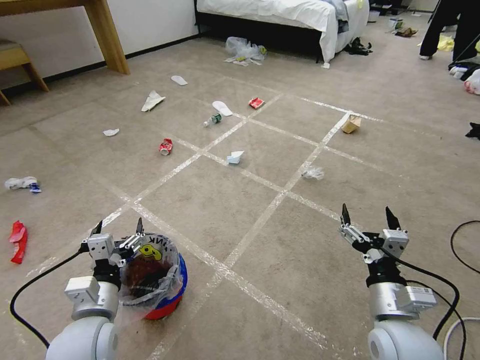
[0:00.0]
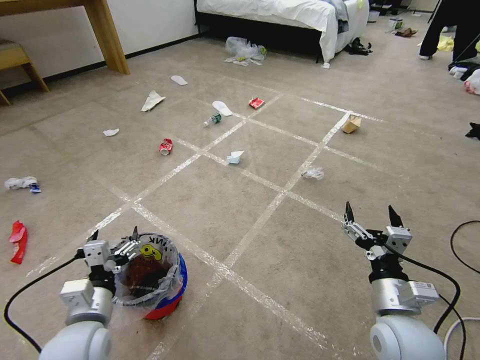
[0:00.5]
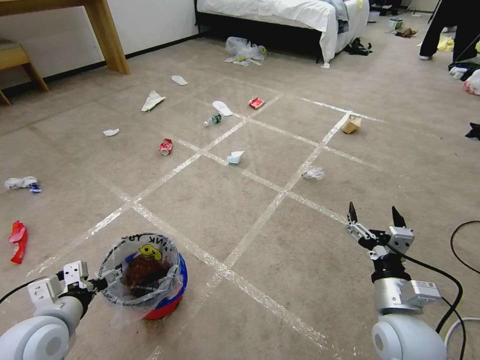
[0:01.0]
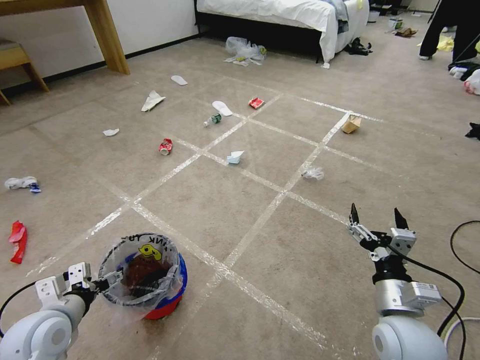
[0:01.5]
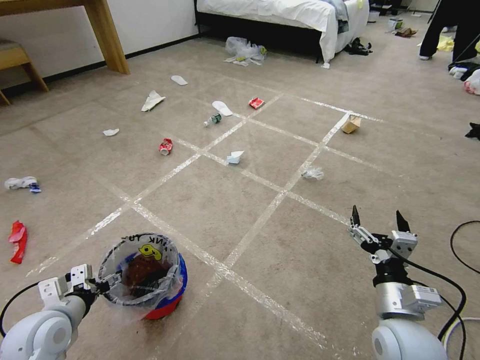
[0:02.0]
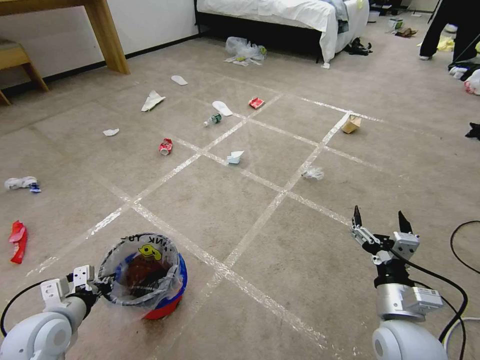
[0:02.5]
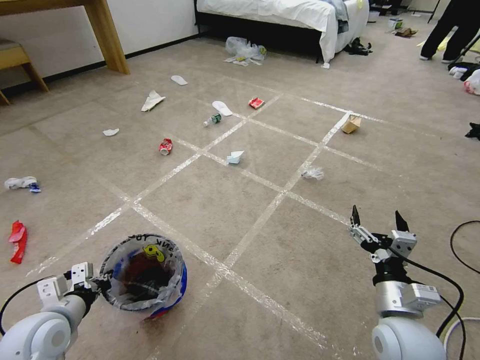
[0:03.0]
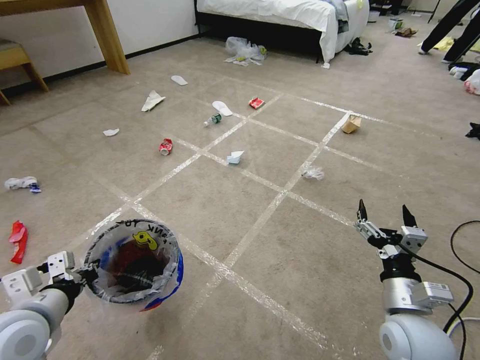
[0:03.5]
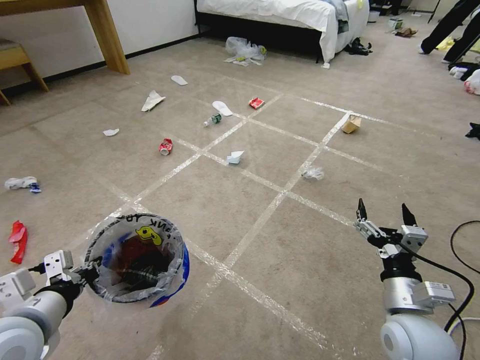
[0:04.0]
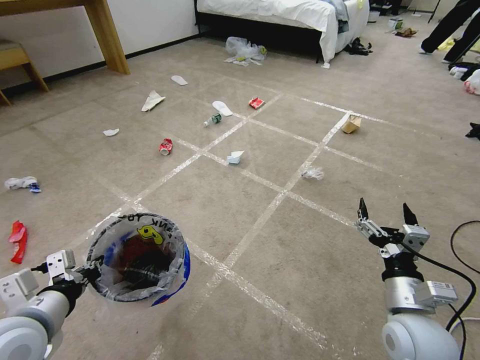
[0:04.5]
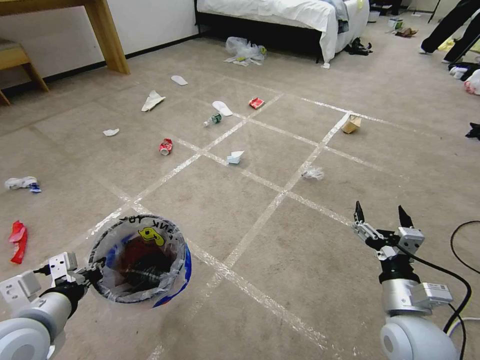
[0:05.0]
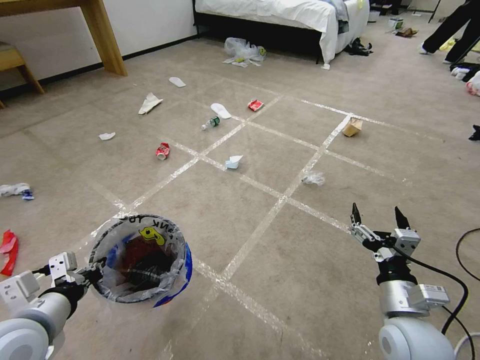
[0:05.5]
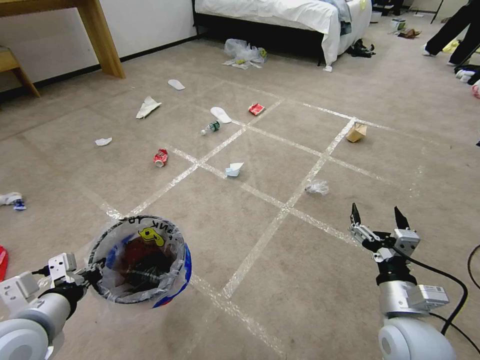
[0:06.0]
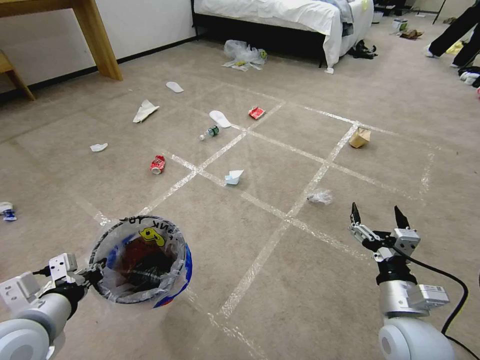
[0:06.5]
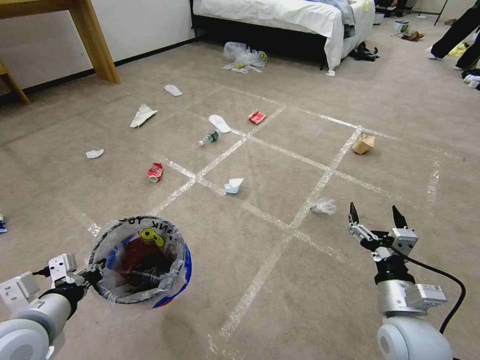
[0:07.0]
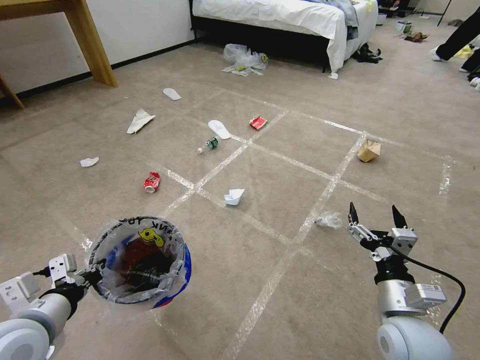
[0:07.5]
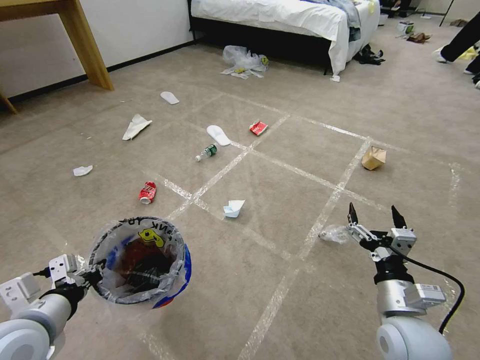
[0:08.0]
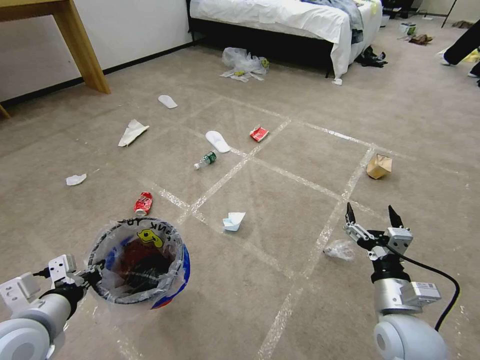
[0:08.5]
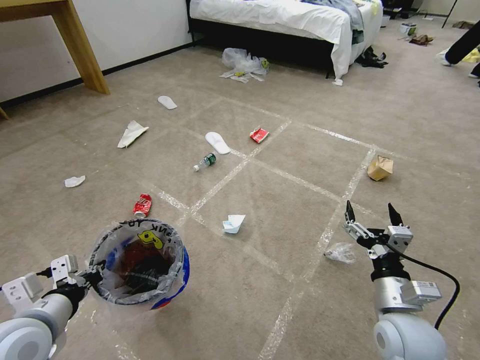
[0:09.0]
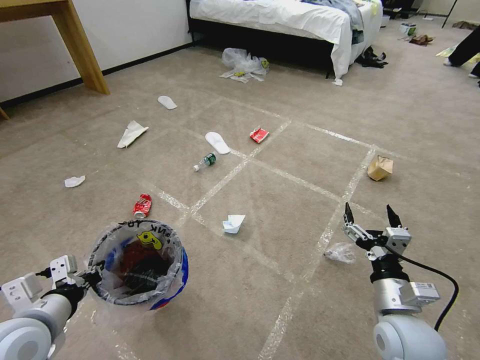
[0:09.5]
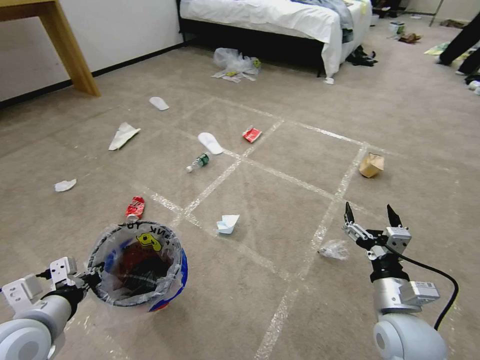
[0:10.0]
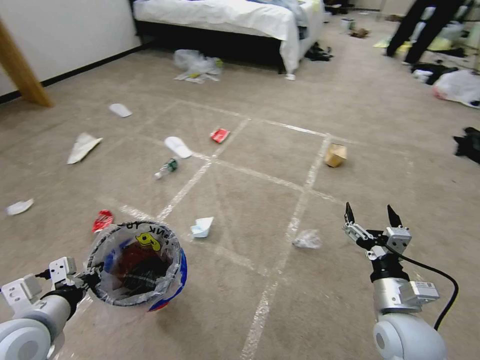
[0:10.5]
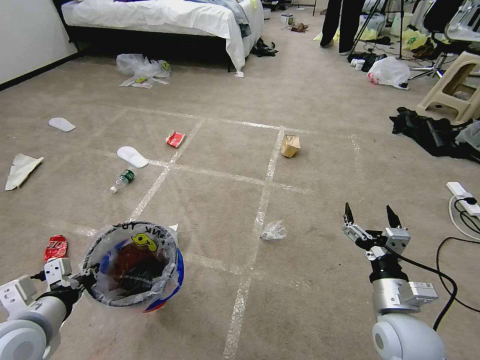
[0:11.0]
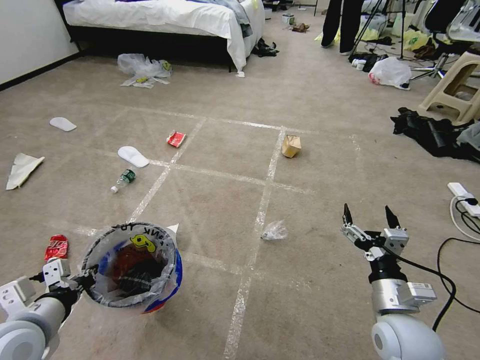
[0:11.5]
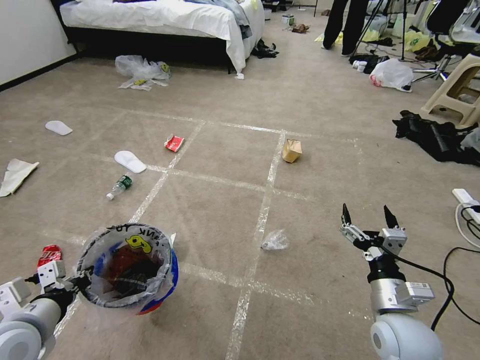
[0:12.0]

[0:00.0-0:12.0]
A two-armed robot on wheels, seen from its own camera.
Task of the whole recording: Pick up the trash bin and place the garbage on the floor into it.
0:02.0 to 0:04.0: The left gripper travels upward by approximately 10 cm, and closes up.
0:04.0 to 0:06.0: Both grippers stay about where they are.
0:08.0 to 0:10.0: The grippers move only a little.

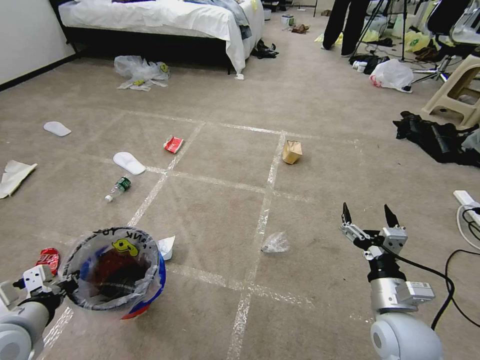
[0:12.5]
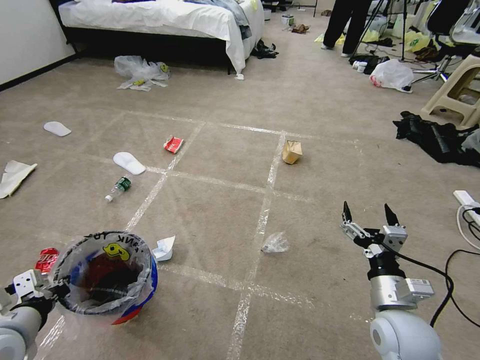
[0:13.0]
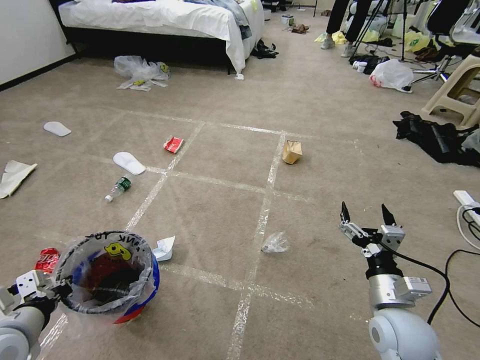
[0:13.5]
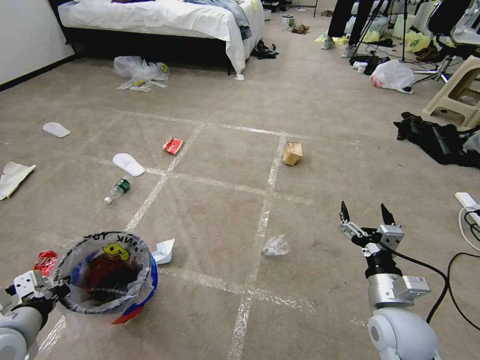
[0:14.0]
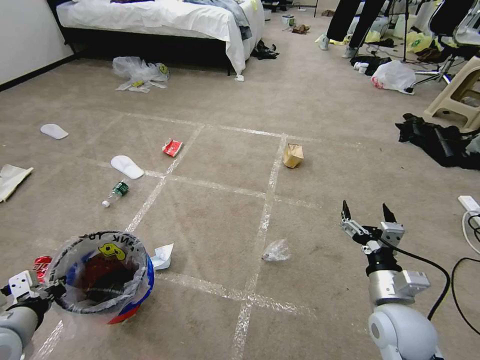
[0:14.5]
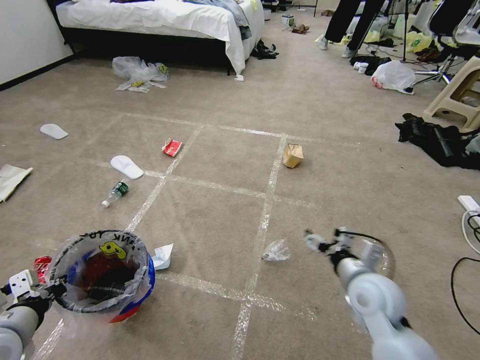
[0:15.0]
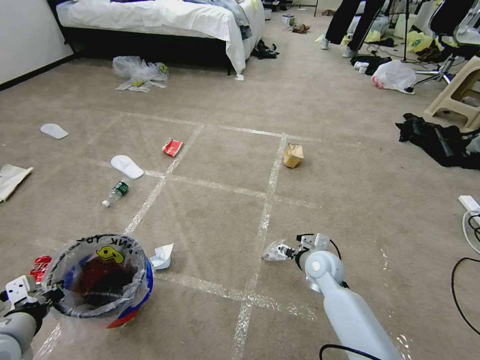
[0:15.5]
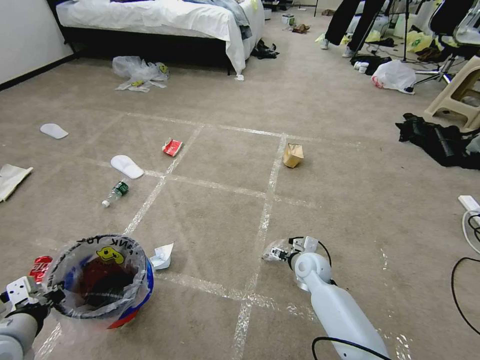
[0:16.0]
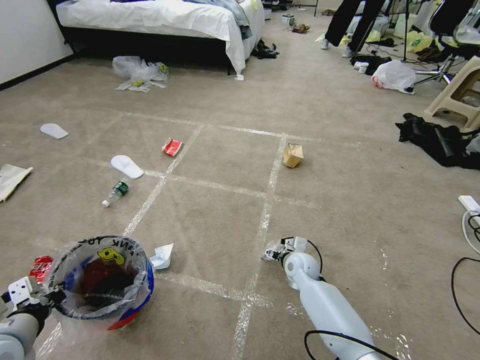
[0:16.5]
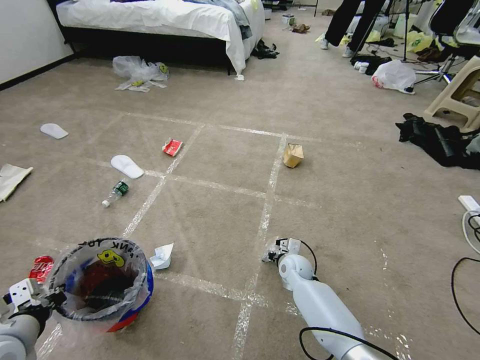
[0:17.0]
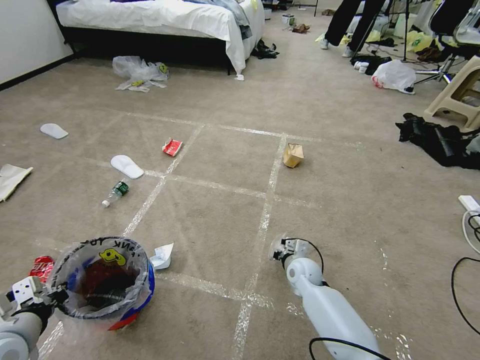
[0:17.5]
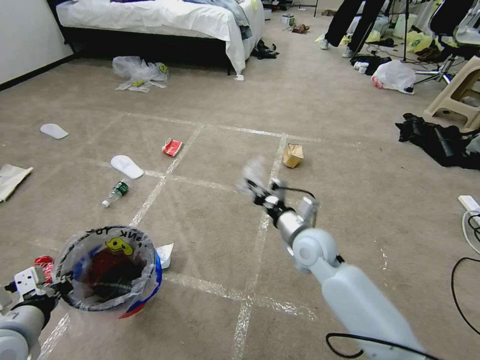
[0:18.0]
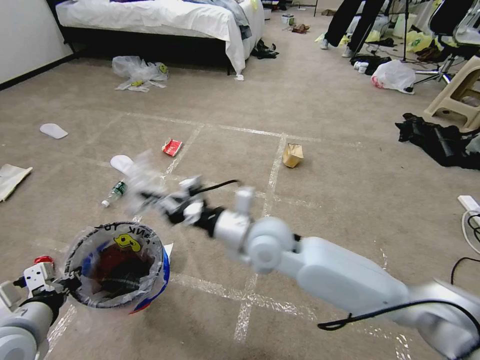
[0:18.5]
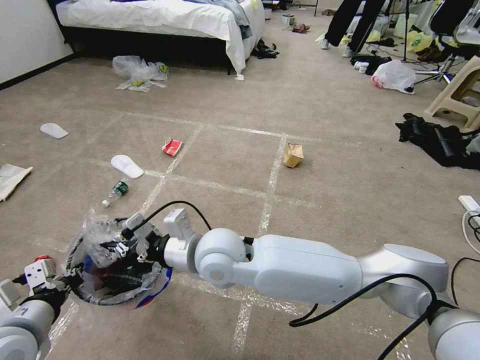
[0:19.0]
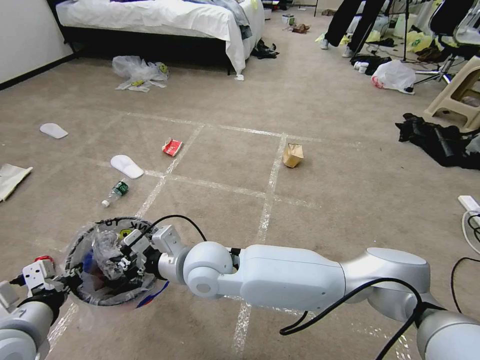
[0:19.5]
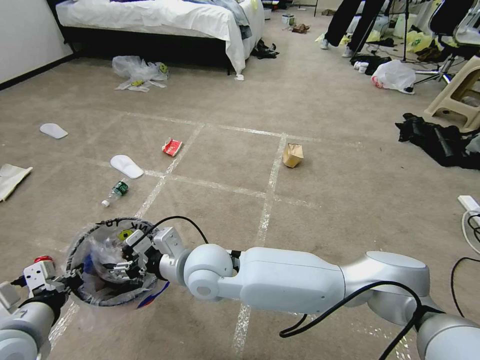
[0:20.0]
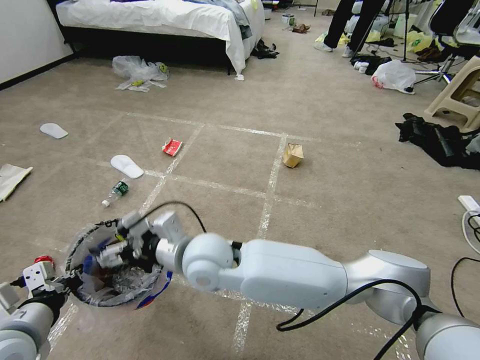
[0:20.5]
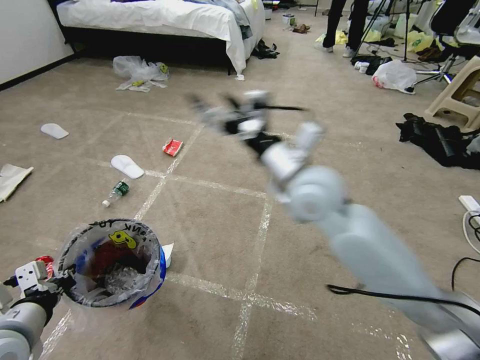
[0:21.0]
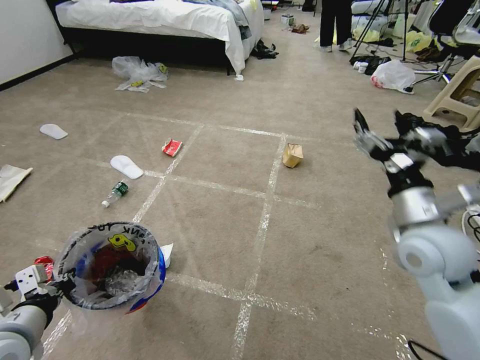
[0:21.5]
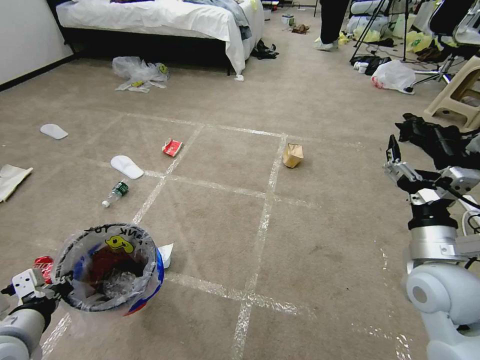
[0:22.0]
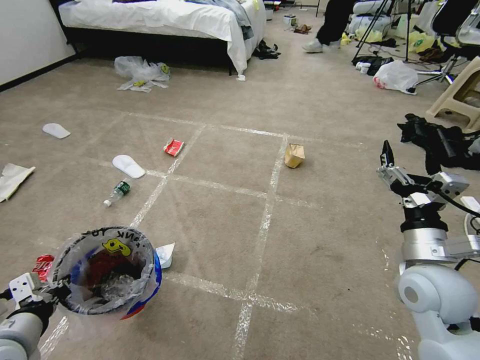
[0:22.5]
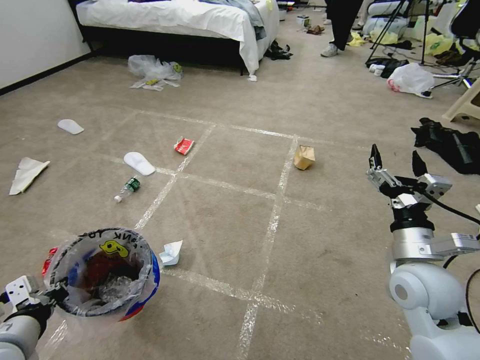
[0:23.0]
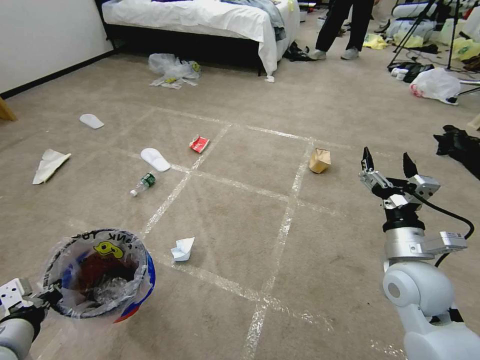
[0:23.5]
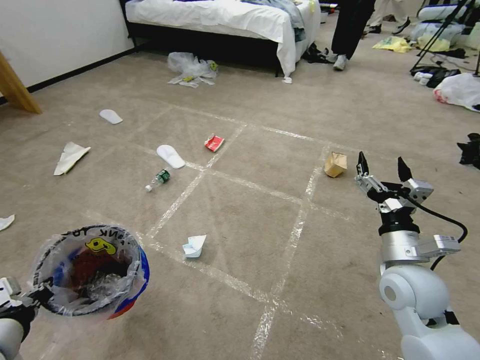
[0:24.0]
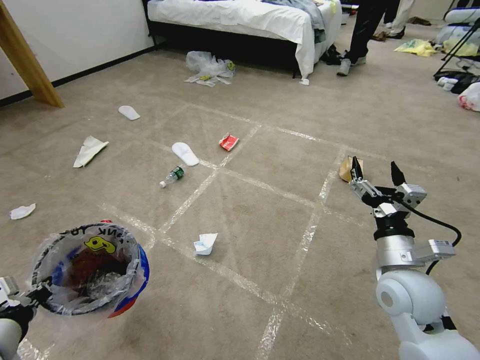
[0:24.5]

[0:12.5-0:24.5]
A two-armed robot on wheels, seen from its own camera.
Task of the whole recording: Pick up the trash bin and place the garbage on the floor into it.
0:12.5 to 0:14.5: The grippers make only small movements.
0:14.5 to 0:16.5: The right gripper travels forward, downward and to the left by about 25 cm.
0:16.5 to 0:18.5: The right gripper shifts approximately 30 cm upward and to the left, and closes its fingers.
0:18.5 to 0:20.5: The right gripper goes roughly 10 cm to the left, and opens its fingers.
0:20.5 to 0:22.5: The right gripper is displaced to the right by about 40 cm.

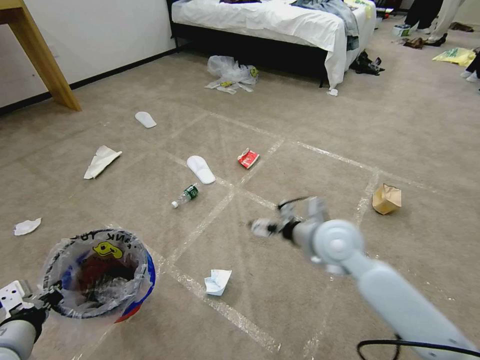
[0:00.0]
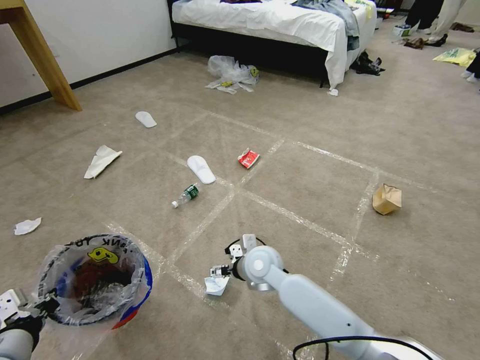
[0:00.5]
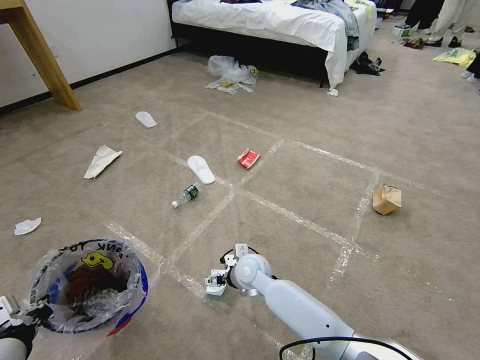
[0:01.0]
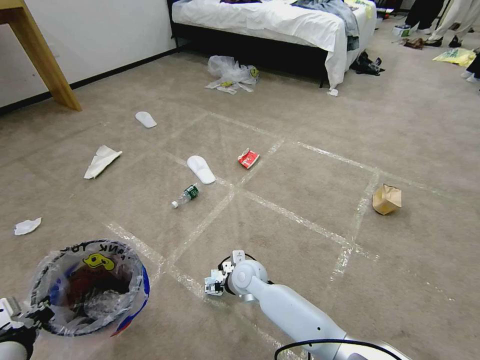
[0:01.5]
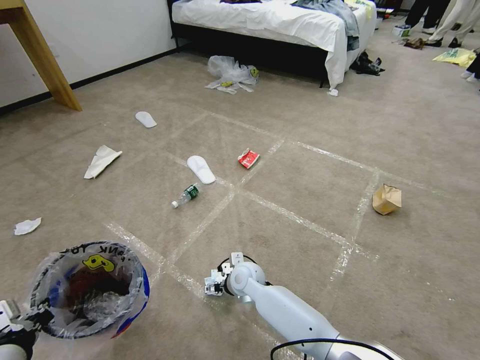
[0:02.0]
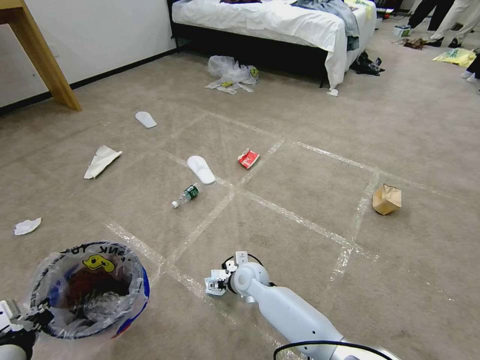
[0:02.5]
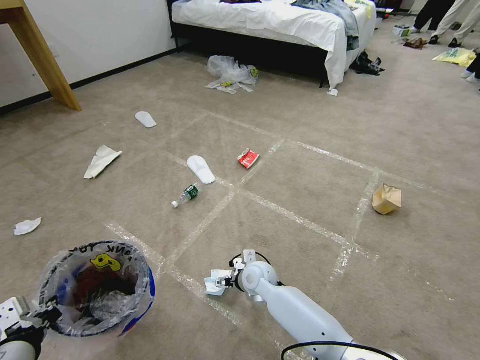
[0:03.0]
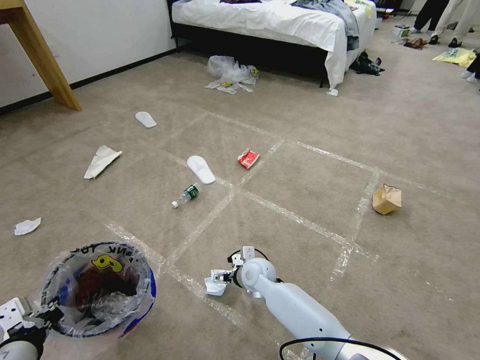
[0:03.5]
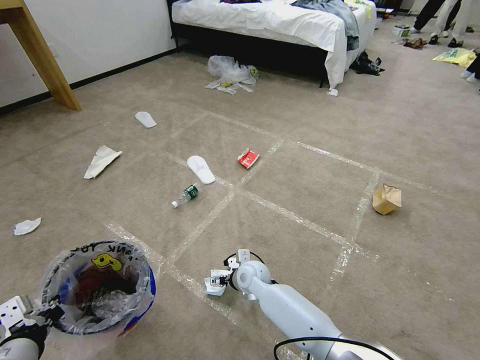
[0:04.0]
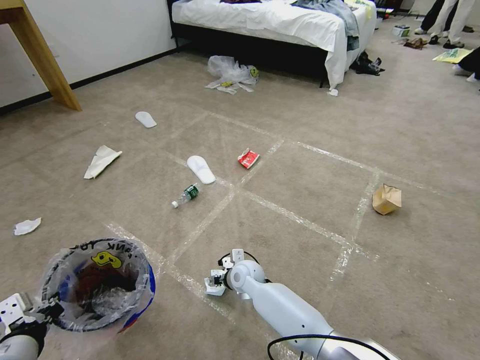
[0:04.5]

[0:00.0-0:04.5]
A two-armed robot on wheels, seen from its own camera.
Task of the whole recording: Pick up the trash bin and place the garbage on the floor into it.
0:00.0 to 0:02.0: The right gripper moves downward and to the left, some 30 cm.
0:02.0 to 0:04.5: The grippers stay close to where they were, moving slightly.
